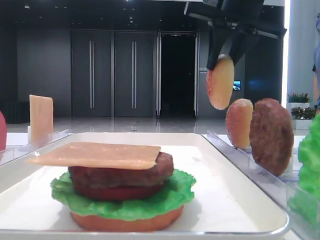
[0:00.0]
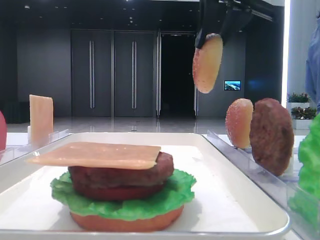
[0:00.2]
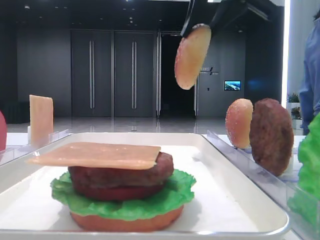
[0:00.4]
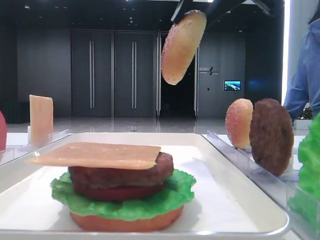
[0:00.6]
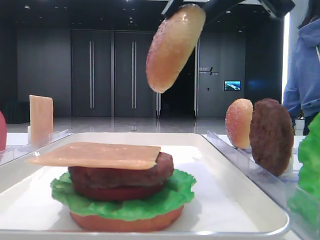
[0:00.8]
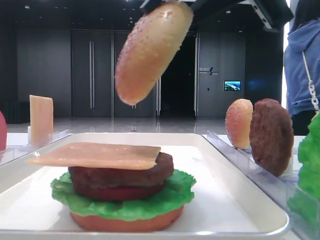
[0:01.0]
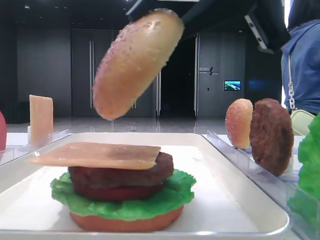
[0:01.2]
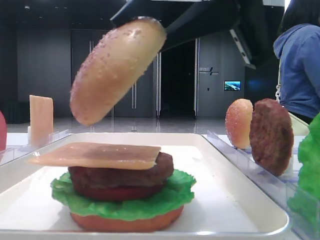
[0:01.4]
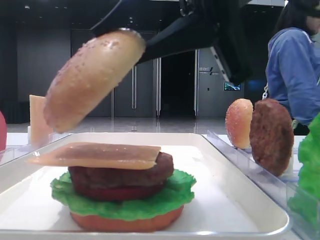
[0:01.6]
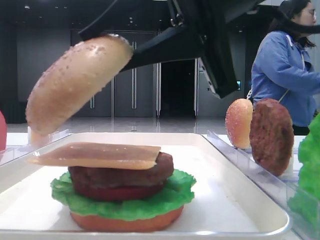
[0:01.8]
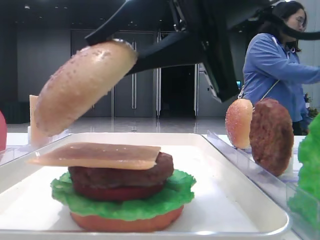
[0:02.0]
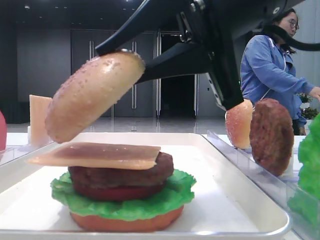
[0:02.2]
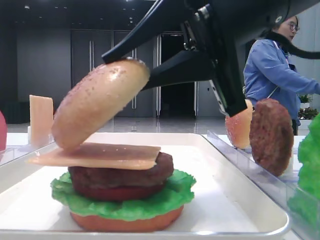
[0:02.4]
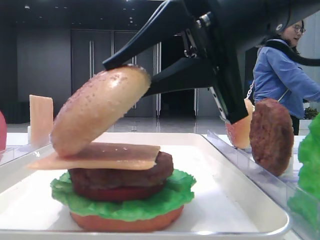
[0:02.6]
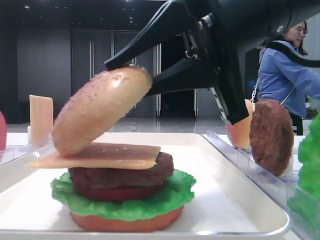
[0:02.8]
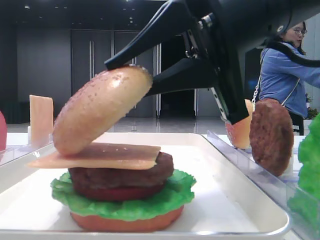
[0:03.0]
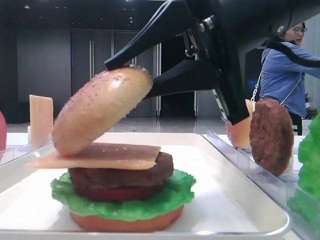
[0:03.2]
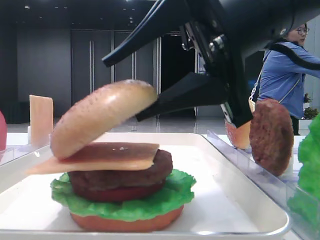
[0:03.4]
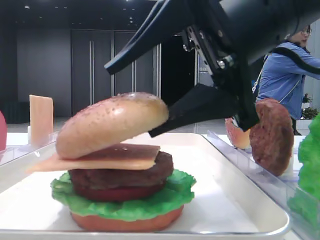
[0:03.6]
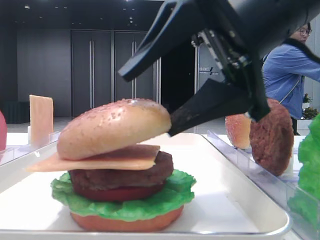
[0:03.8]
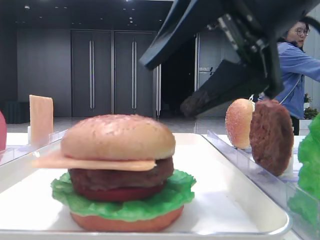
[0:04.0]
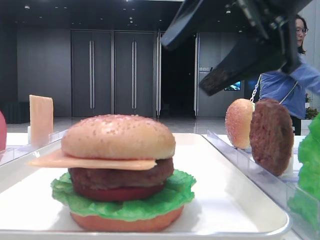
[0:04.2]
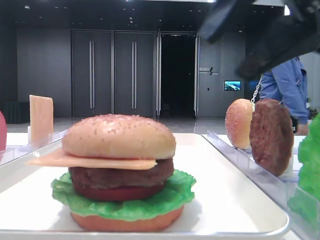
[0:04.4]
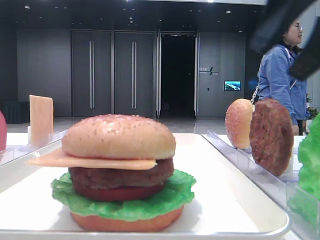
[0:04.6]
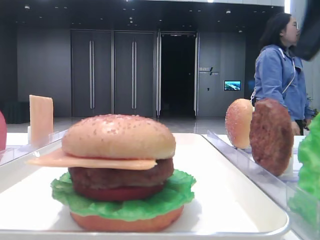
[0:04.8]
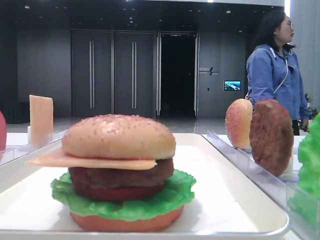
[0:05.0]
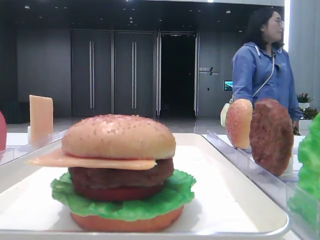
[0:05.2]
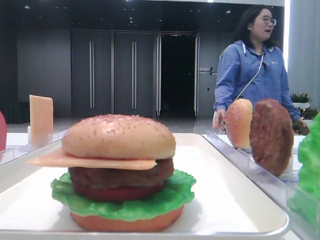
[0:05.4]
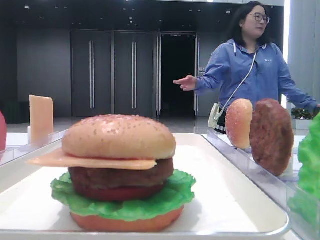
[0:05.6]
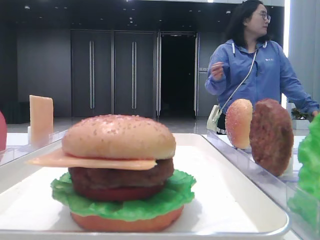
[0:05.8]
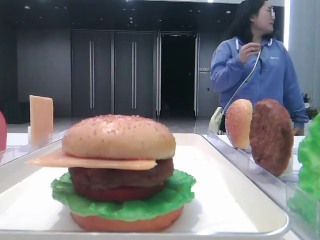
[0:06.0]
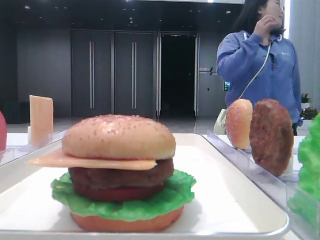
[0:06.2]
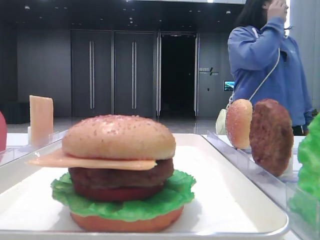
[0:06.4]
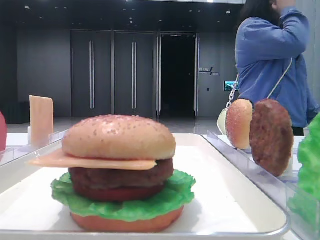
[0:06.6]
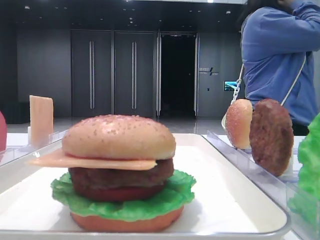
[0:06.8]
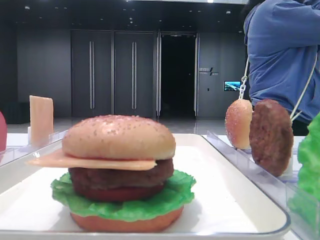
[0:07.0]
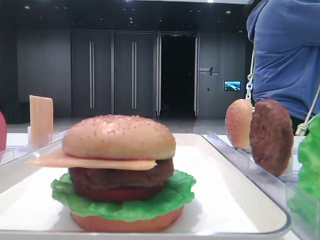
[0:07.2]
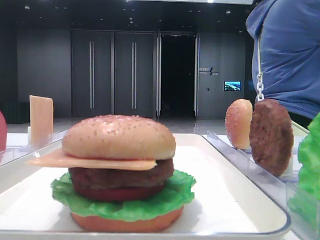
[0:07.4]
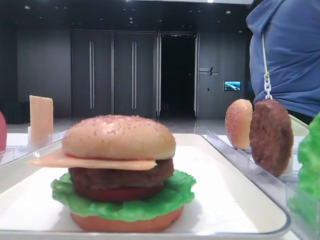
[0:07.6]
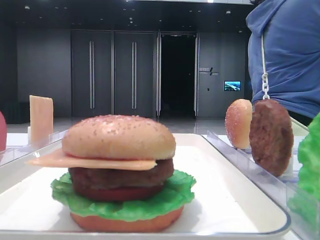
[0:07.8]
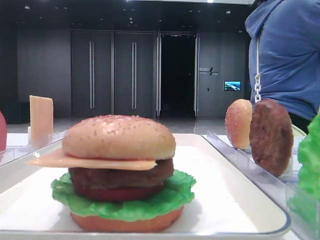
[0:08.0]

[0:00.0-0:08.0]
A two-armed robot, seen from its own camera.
Step, 0.0 to 3.8 s: Place the top bread slice on the cheese with the right hand.
0.0 to 1.6 s: The right gripper moves backward, approximately 20 cm.
3.2 to 4.8 s: The right gripper travels to the right and upward by approximately 15 cm, and opens up.
4.8 to 6.4 s: The right gripper goes some 20 cm backward.
6.4 to 8.0 s: The right gripper moves backward, some 5 cm.

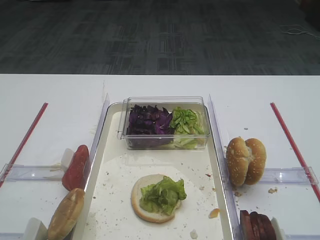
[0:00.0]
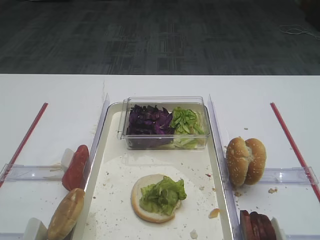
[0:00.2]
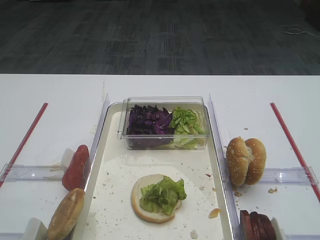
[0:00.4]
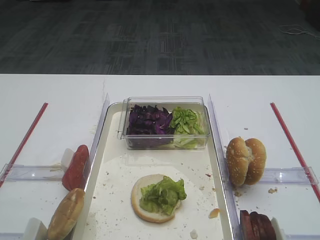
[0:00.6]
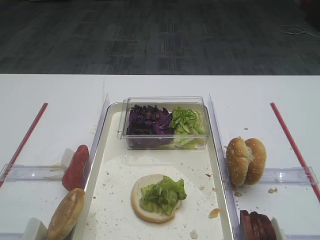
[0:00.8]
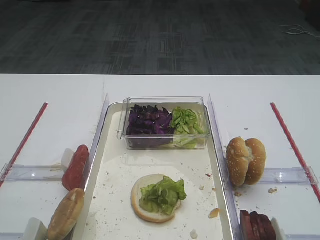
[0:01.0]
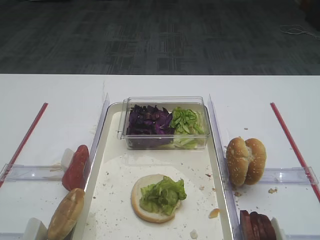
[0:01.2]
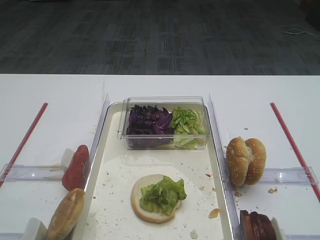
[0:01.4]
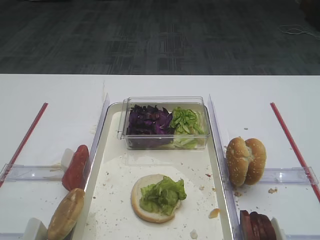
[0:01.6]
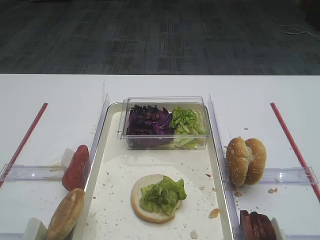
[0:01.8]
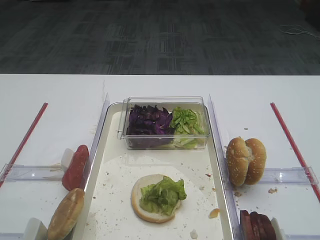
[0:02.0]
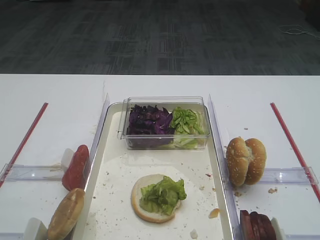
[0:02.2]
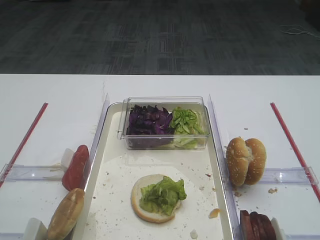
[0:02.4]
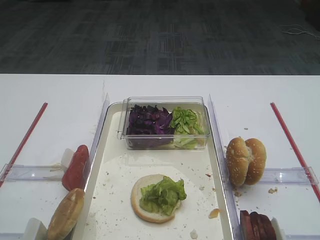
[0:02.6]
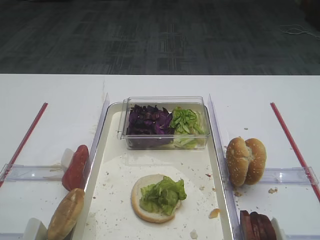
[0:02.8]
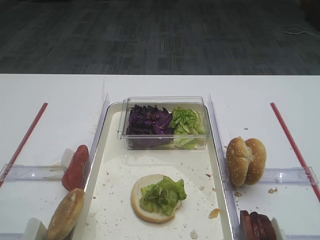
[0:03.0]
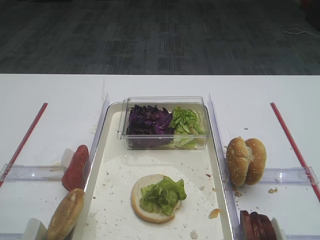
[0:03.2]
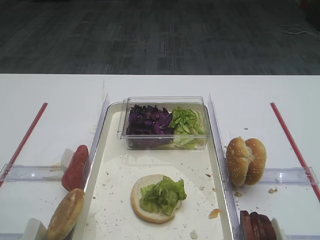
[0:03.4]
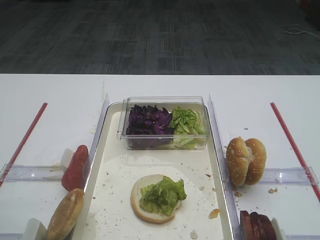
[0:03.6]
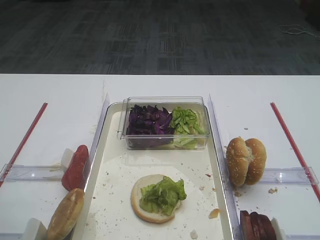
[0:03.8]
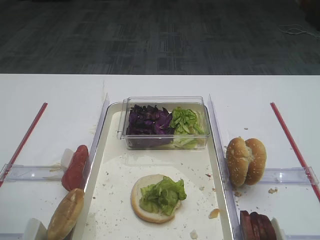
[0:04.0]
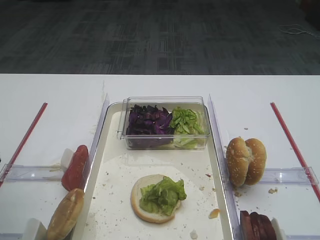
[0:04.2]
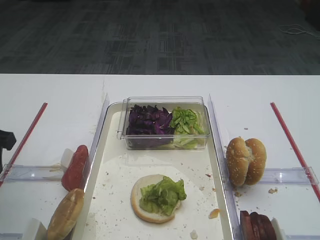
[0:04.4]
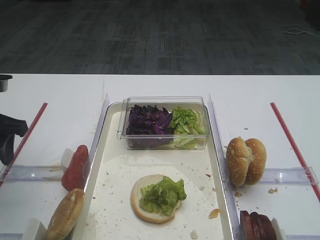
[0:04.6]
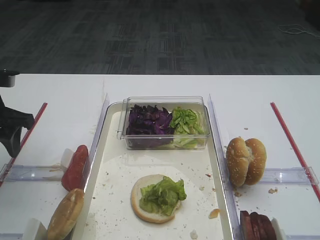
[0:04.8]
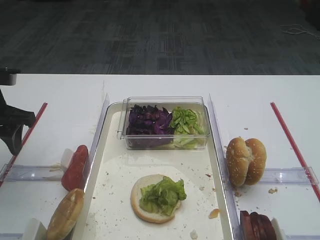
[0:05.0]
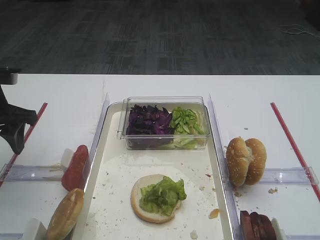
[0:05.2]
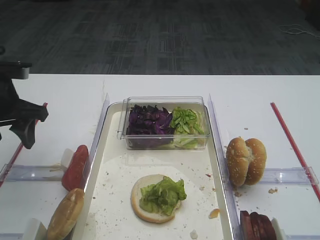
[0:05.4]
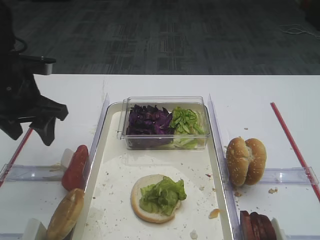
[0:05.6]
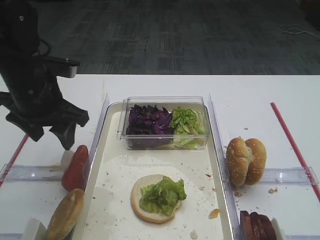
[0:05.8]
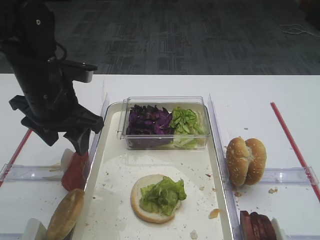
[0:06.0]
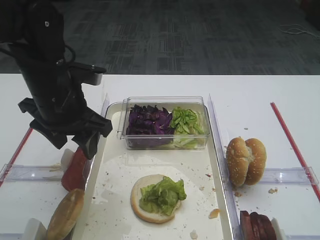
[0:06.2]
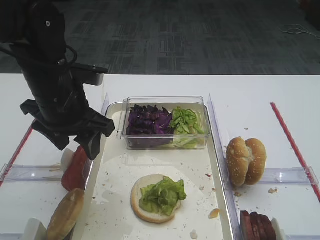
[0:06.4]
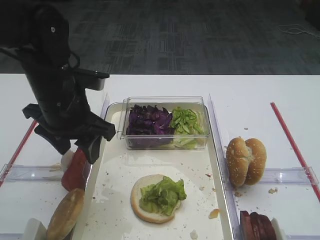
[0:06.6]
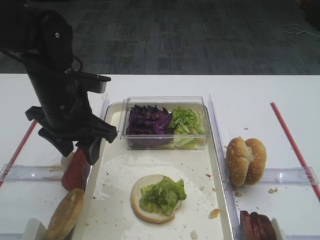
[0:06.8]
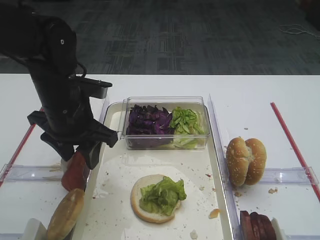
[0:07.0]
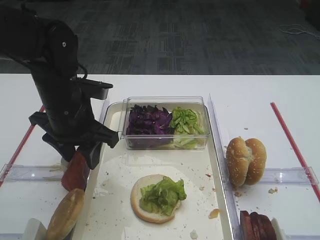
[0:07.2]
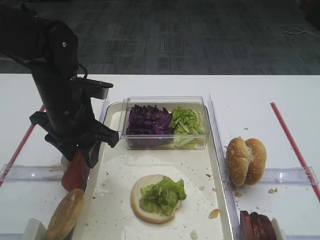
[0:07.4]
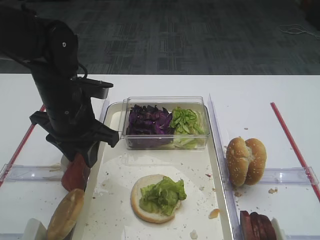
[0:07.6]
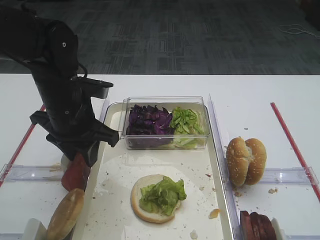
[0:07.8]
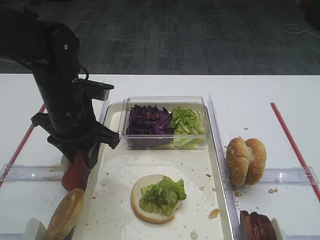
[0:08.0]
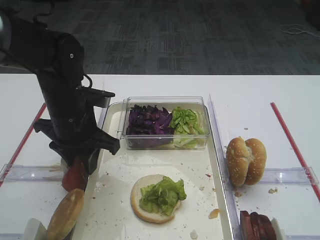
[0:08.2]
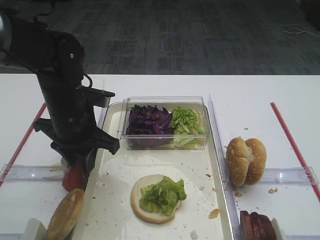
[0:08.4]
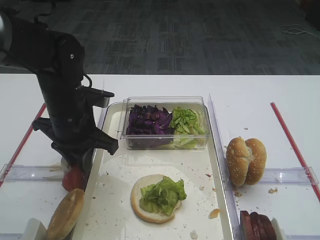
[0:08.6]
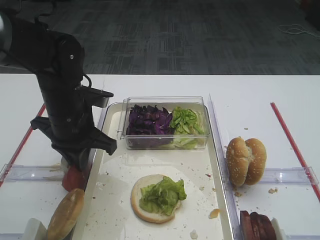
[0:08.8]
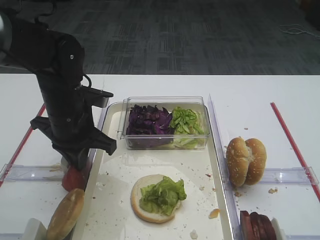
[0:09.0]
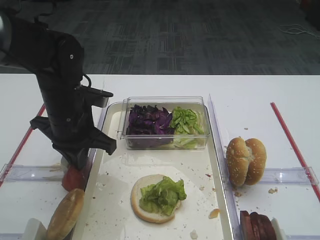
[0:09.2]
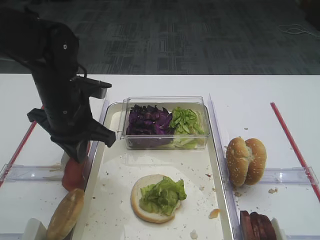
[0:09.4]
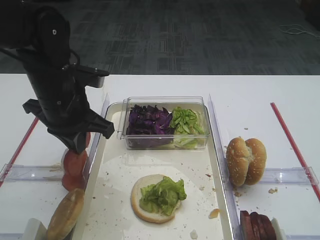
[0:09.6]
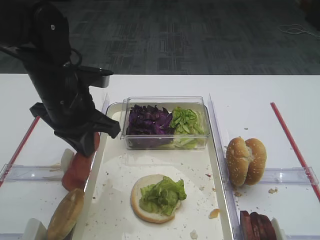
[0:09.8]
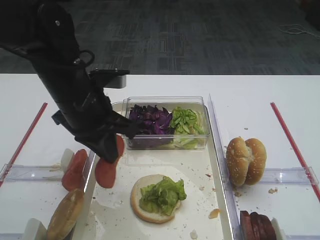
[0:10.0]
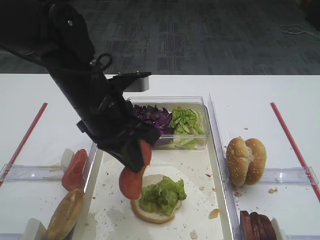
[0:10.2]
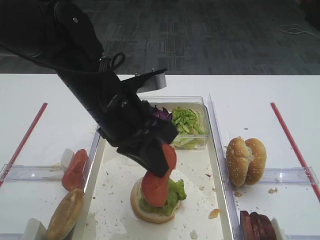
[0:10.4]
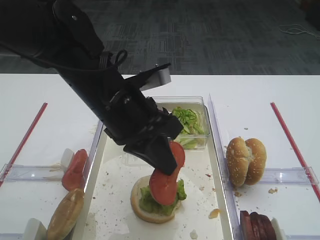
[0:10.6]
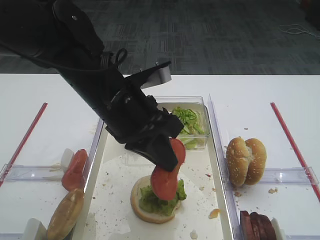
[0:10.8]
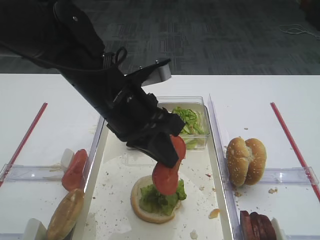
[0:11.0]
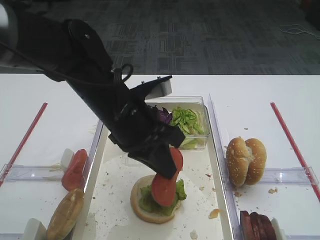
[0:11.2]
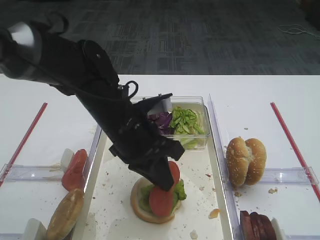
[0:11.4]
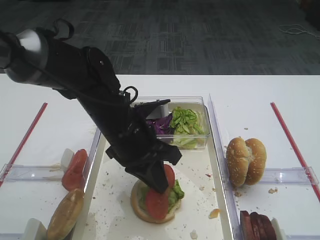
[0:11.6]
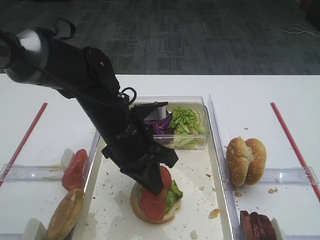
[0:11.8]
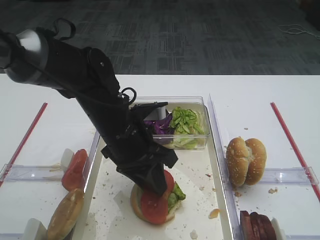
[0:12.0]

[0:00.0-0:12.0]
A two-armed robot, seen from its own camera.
Step, 0.0 to 9.8 s: Pick up the tomato slice with the left gripper.
3.0 to 4.4 s: The left gripper moves forward, roughly 15 cm.
4.4 to 6.0 s: The left gripper heads to the right, covering some 15 cm.
6.0 to 7.6 s: The grippers stay close to where they were, moving slightly.
7.6 to 9.0 s: The left gripper closes.
9.0 to 10.4 s: The left gripper goes roughly 10 cm to the right, upward and backward.
10.4 to 12.0 s: The left gripper moves downward, approximately 5 cm, and opens up.

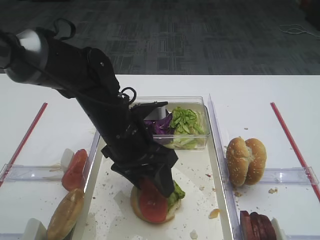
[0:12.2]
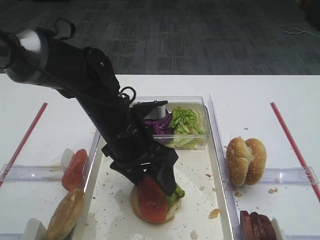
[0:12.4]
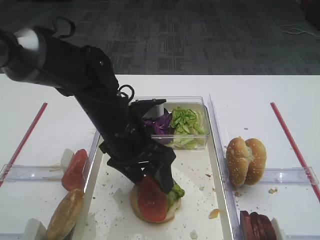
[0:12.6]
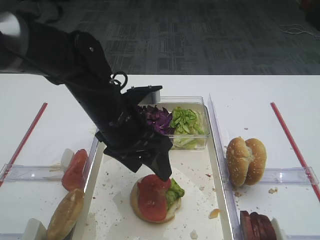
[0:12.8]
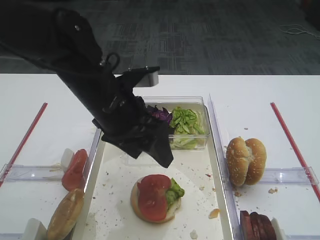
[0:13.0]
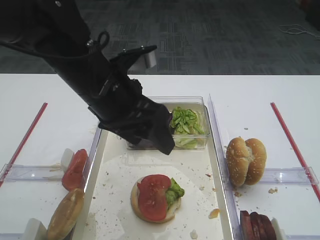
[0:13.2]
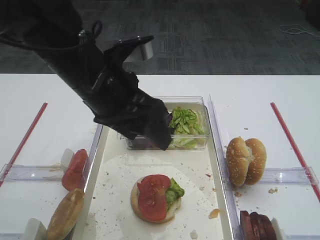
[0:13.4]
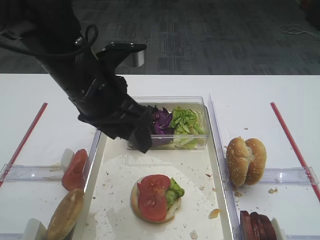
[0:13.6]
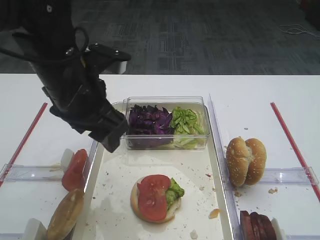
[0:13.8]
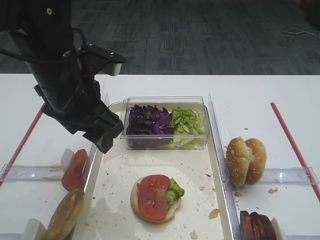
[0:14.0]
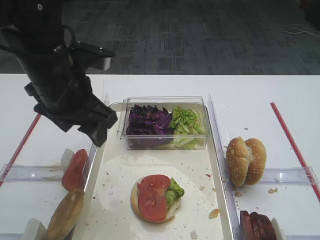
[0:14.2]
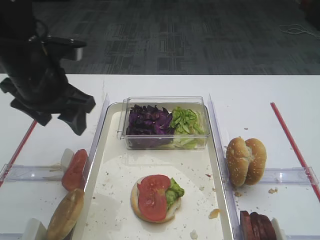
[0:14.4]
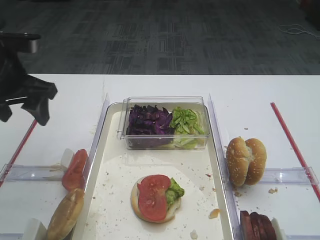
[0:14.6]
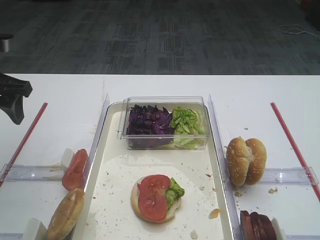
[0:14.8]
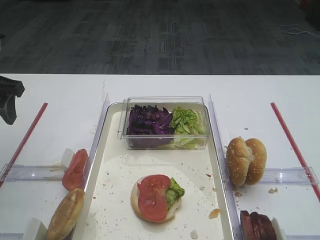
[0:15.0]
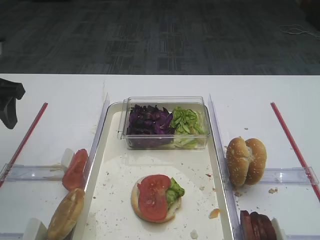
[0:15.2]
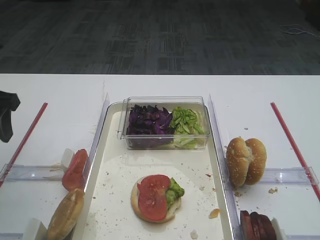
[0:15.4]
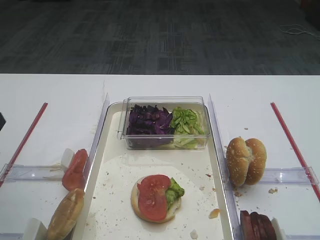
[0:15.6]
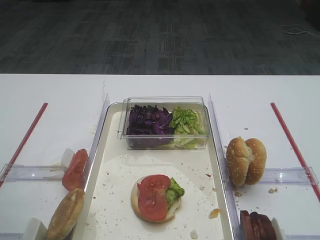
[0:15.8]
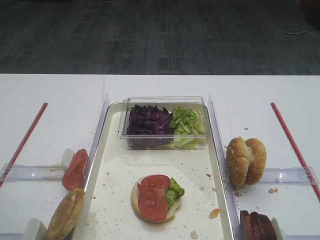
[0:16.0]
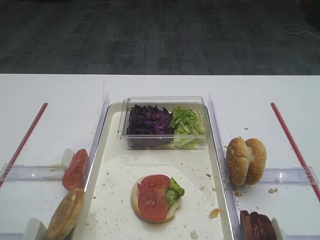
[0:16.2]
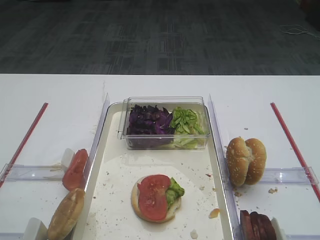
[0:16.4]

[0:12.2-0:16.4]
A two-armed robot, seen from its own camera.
12.2 to 13.6 s: The left gripper moves upward, approximately 10 cm.
13.6 to 15.0 s: The left gripper heads to the left, covering about 20 cm.
15.0 to 16.4 s: The left gripper goes approximately 25 cm backward.
